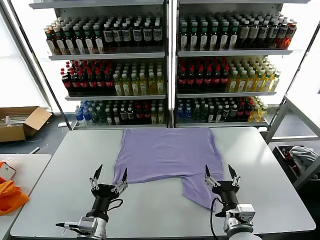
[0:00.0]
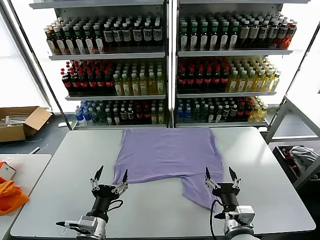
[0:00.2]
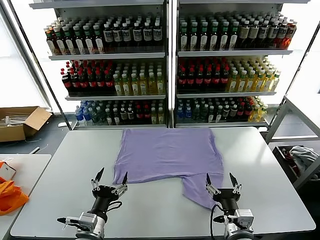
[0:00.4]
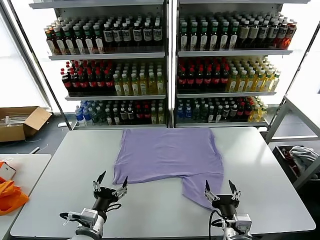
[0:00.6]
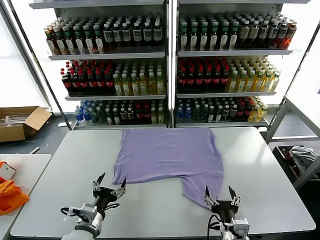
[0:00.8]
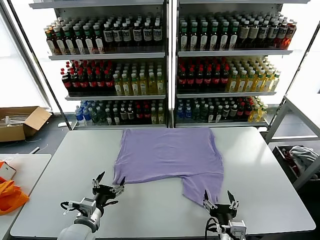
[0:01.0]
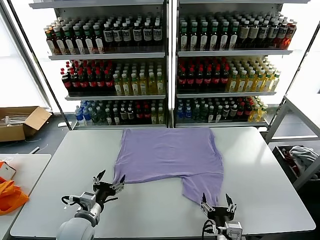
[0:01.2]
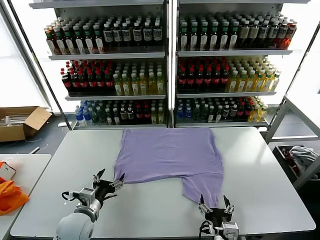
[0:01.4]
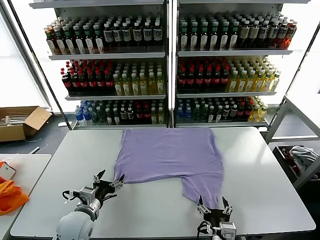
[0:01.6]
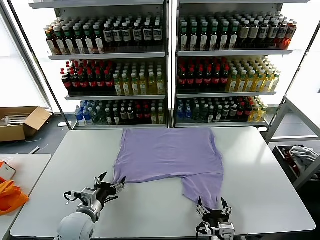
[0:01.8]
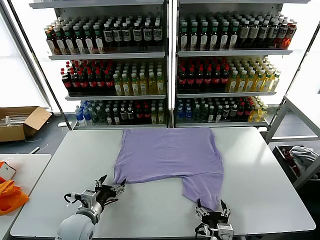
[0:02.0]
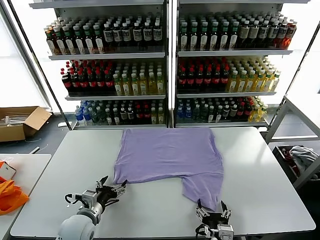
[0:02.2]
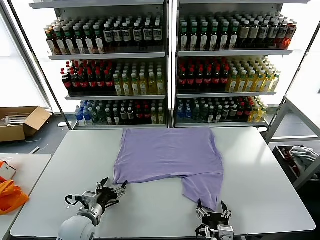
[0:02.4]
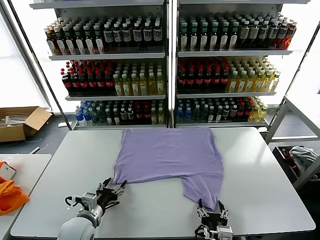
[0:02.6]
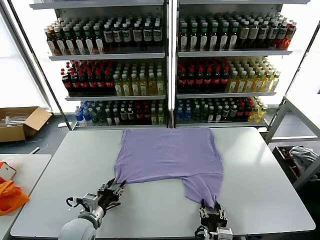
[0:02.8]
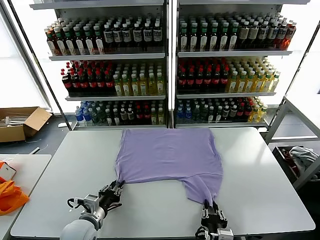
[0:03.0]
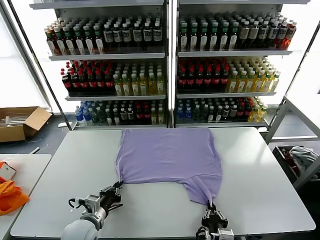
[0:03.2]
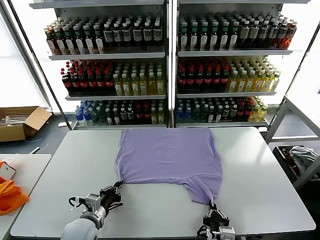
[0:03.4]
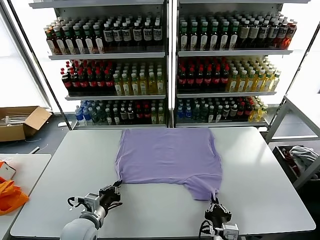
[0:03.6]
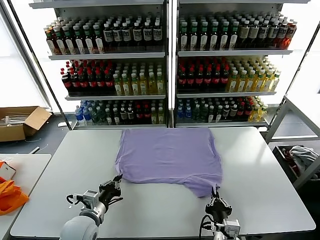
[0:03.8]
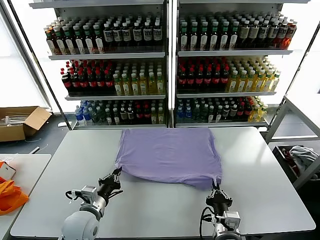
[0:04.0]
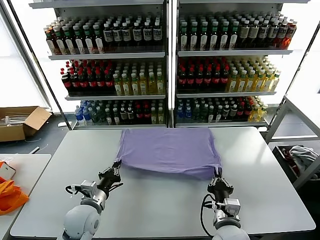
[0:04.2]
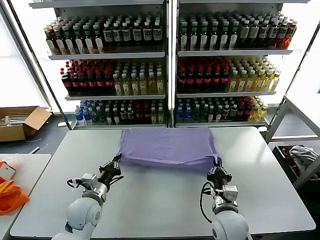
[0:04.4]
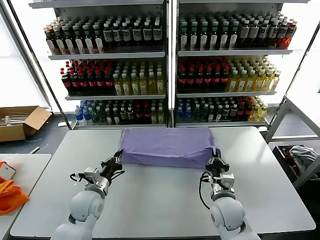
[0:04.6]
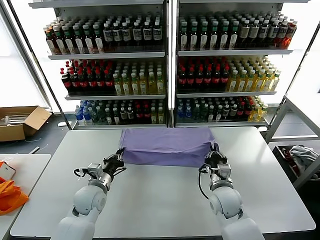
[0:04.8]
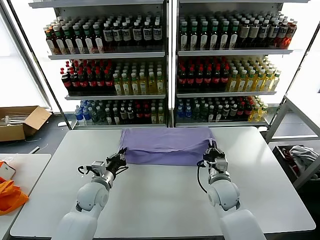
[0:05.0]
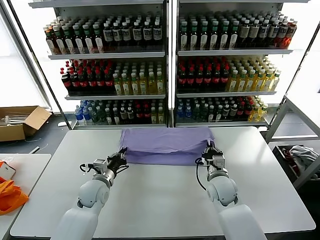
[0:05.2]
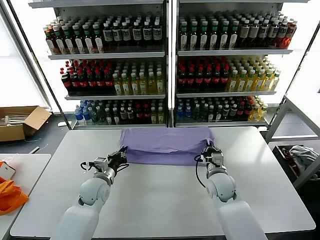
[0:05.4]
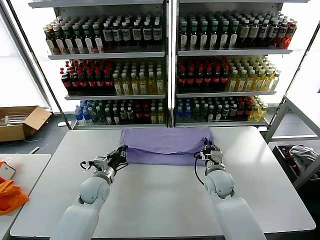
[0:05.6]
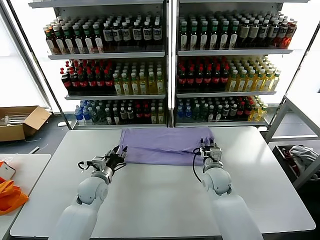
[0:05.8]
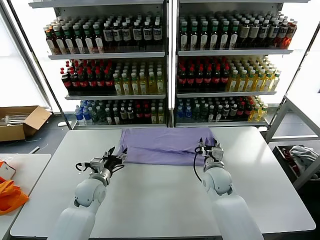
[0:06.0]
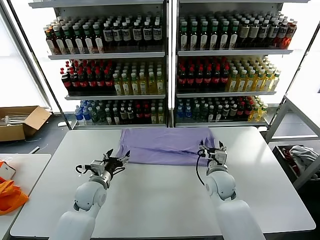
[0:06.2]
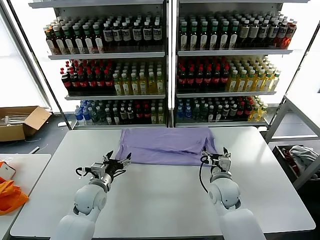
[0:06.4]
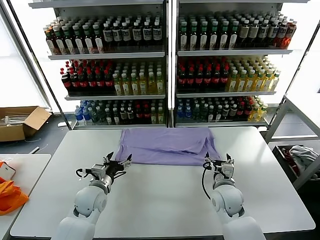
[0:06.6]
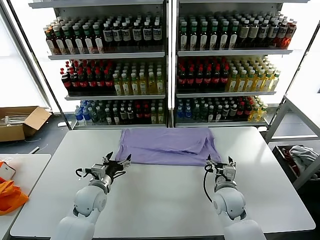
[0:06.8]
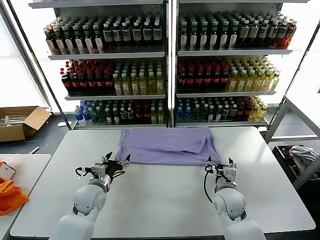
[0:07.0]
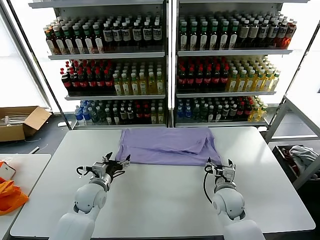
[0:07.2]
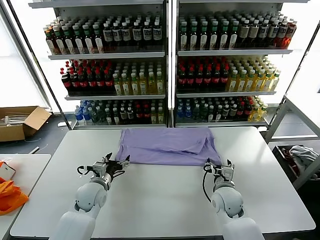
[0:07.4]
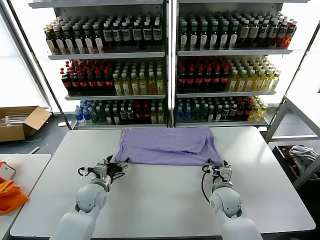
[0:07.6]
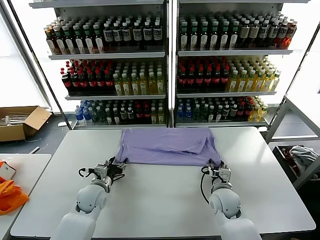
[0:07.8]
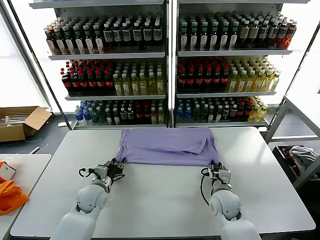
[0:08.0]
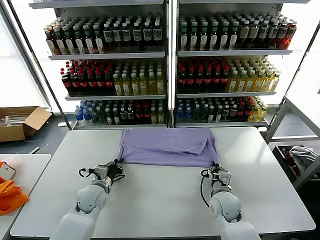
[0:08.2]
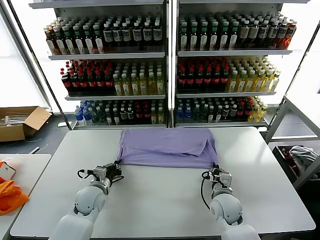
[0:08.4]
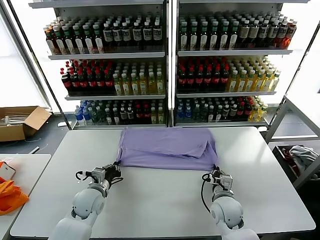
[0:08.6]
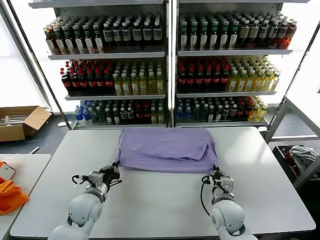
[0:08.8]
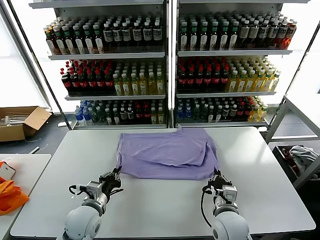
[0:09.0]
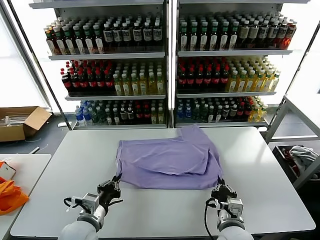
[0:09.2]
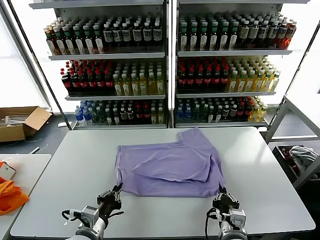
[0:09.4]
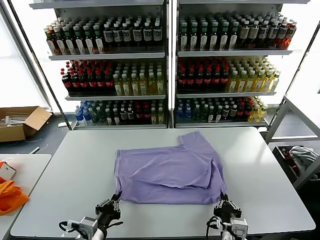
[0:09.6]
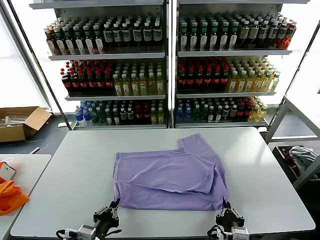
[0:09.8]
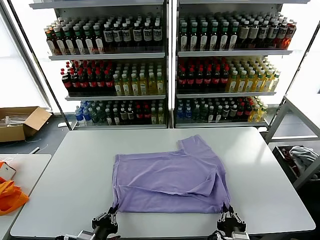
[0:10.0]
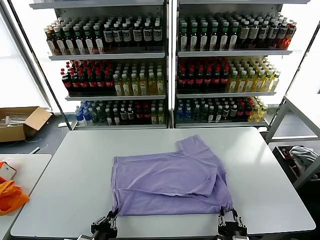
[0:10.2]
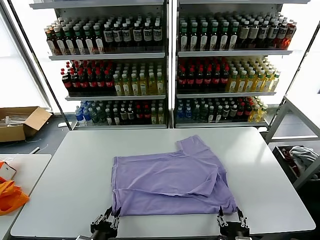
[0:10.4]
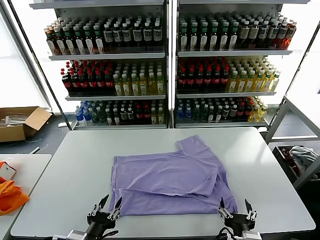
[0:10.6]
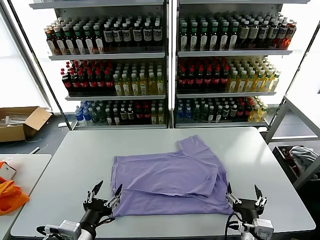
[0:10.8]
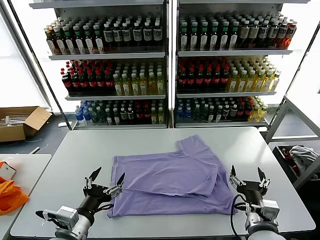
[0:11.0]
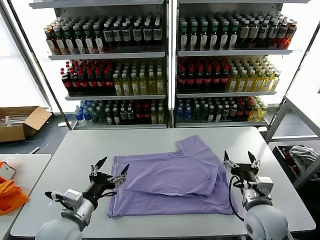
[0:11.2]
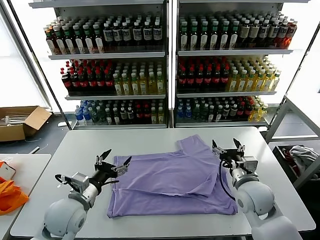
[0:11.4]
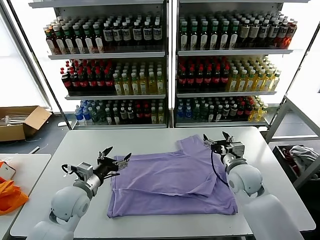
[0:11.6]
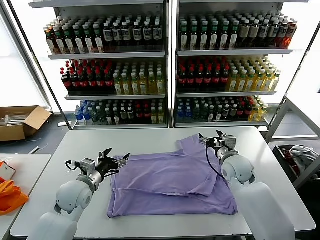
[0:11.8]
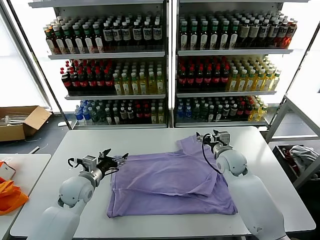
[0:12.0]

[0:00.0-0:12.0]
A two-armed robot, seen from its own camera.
Task of the whole recording: fold and organize the clothes.
Step, 0.0 to 3.6 s: use both grippers simultaneously to clamp the lower edge of the clothing fabric.
Step, 4.0 to 5.8 s: use both grippers to drag the lower edge of the fabric forward and fold it over the upper edge.
Step, 6.0 to 10.4 s: Drag the clothes downward with both gripper.
1.6 to 3.0 s: The right gripper closes its fingers. The left gripper closes its fingers.
3.0 to 4.4 s: The left gripper is displaced forward by roughly 5 cm, while the right gripper shifts some 15 cm forward.
4.4 to 6.0 s: Both grippers travel together forward, approximately 10 cm. The right gripper opens its fingers. The left gripper opens its fingers.
6.0 to 7.6 s: The right gripper moves backward, approximately 5 cm.
7.6 to 9.0 s: The grippers both shift backward by approximately 10 cm. The right gripper closes; the left gripper closes.
9.0 to 10.4 s: Both grippers travel together backward, about 15 cm. The right gripper opens its fingers.
10.4 to 12.0 s: The grippers both shift forward by roughly 30 cm. The left gripper opens its fingers.

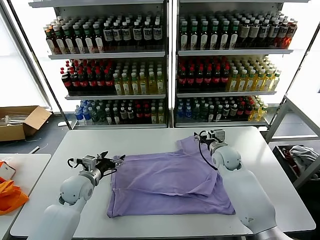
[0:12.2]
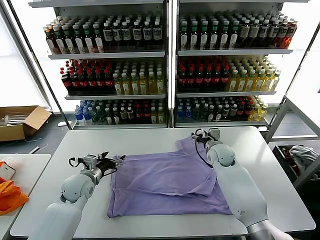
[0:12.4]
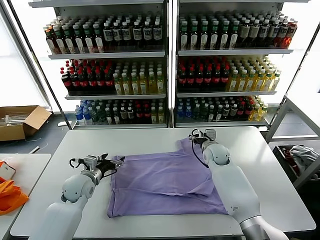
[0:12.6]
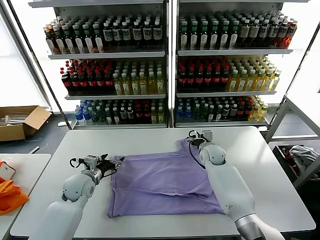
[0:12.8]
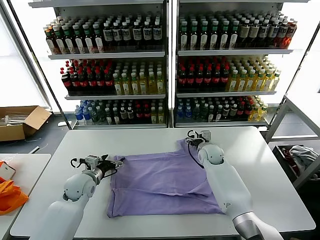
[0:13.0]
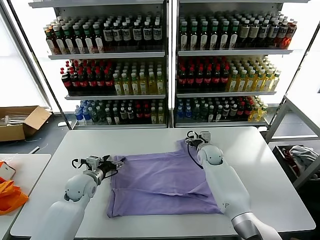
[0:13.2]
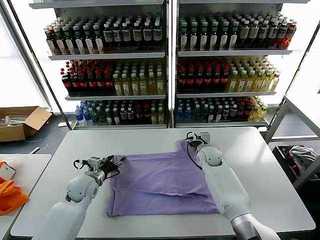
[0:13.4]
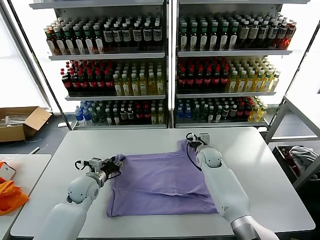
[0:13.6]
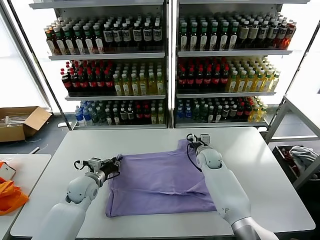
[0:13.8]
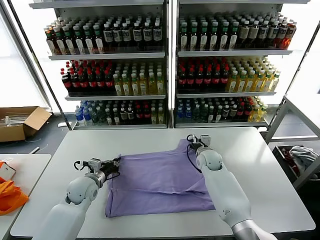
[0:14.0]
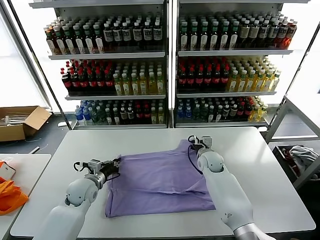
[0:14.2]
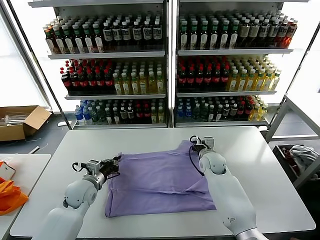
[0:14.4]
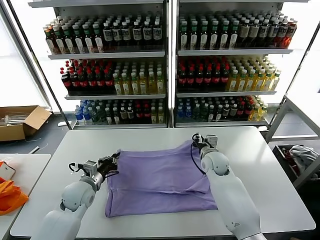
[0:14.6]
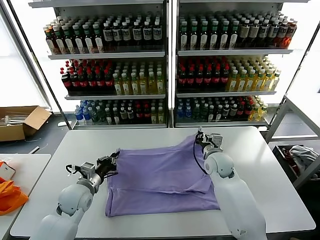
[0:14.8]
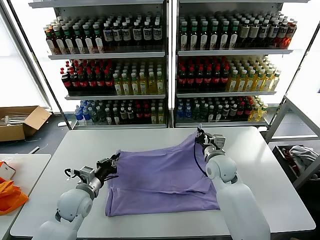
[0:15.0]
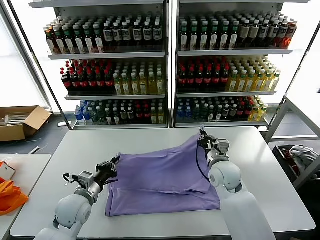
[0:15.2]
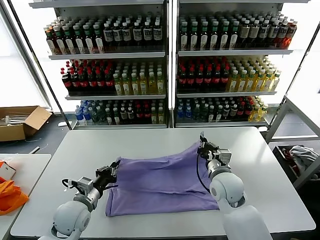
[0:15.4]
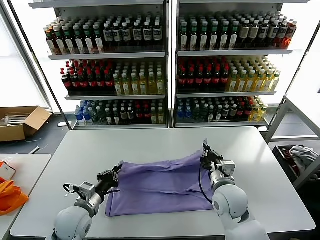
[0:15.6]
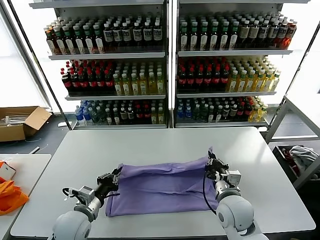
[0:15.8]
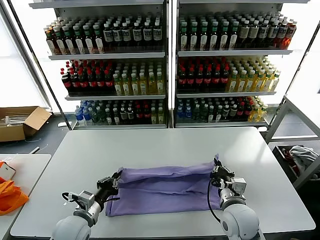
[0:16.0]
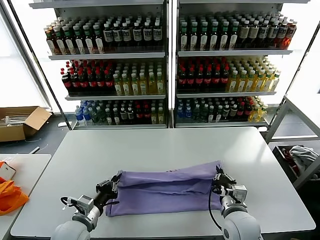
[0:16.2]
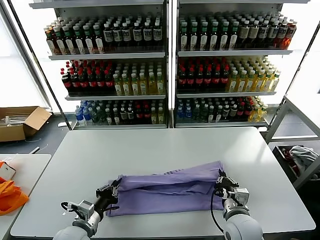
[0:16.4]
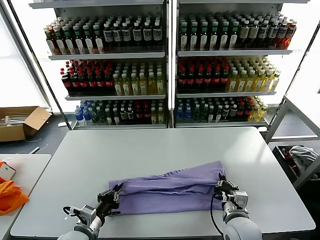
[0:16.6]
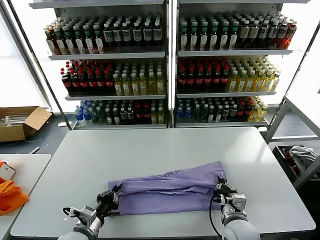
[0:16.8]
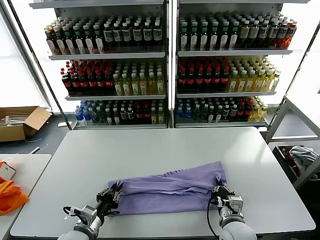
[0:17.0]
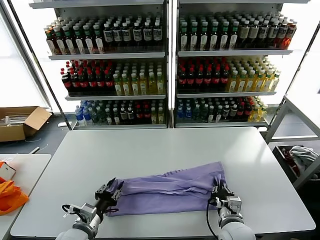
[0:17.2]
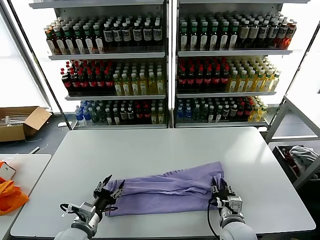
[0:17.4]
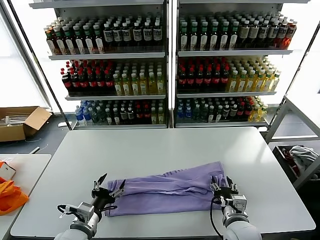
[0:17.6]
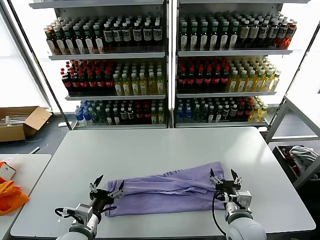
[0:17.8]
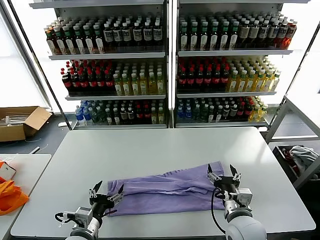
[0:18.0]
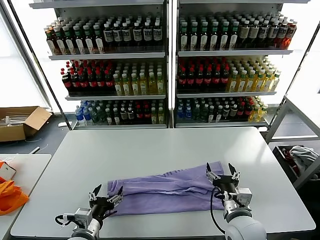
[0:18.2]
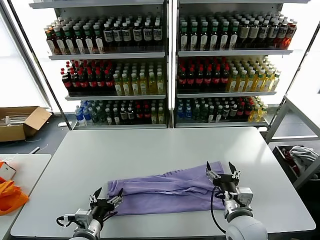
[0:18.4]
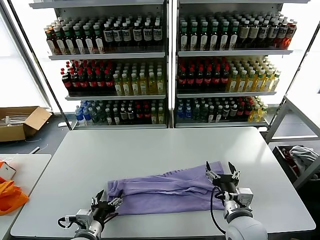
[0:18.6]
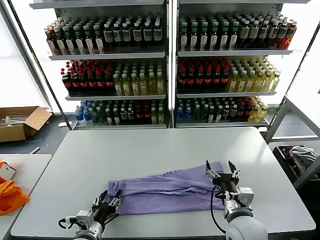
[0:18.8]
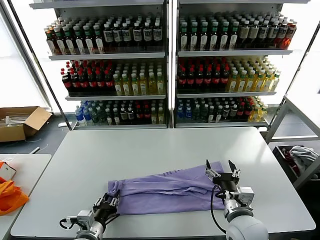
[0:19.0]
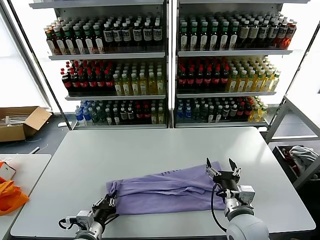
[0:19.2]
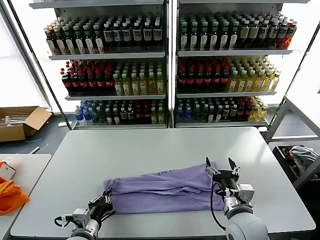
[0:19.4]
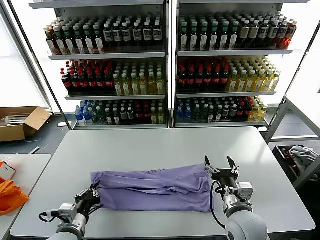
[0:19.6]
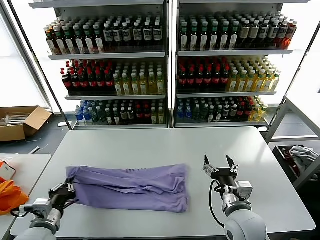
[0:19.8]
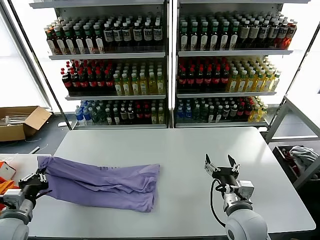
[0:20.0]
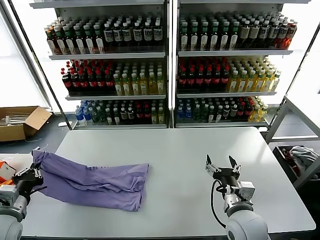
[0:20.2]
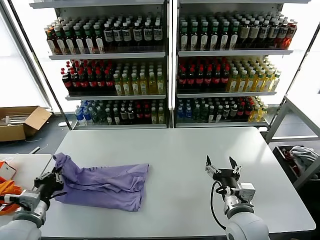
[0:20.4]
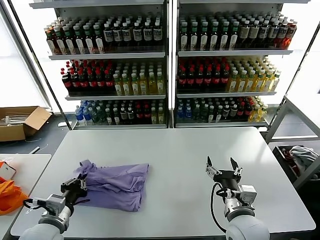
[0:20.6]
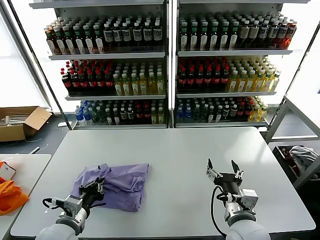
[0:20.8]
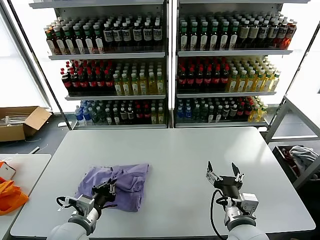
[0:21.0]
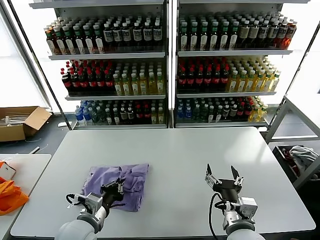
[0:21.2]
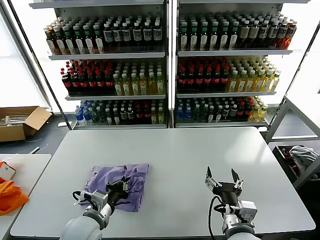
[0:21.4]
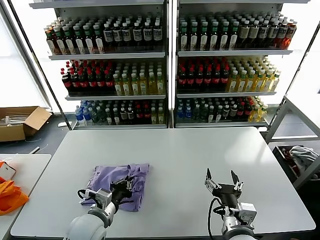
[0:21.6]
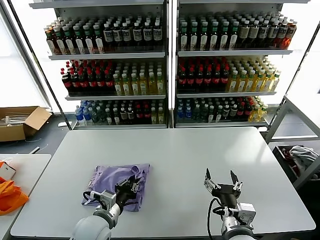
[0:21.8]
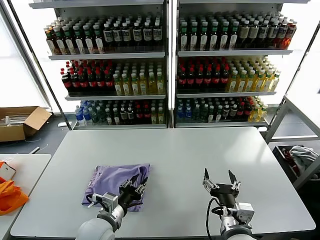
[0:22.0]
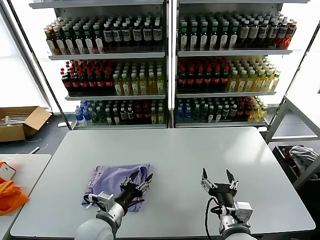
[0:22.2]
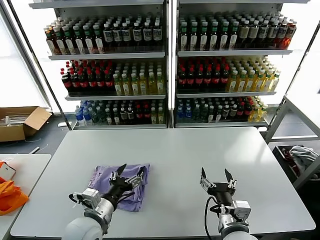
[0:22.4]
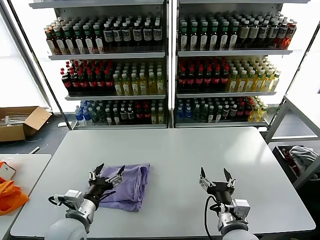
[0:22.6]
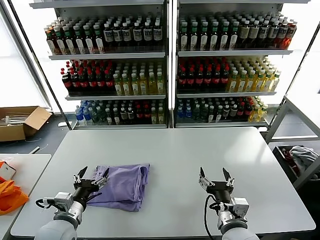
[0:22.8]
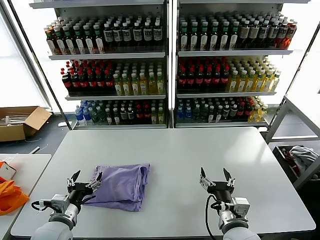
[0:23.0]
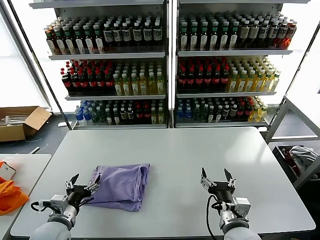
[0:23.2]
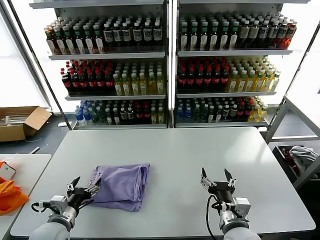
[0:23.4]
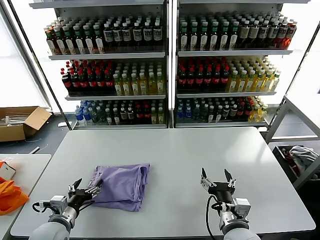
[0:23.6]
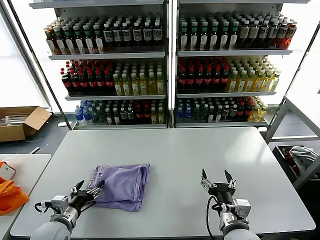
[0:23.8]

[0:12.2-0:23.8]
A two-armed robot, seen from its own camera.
Task of the whole recording: fold and organize the clothes.
Step, 12.2 to 14.4 s: use both grippers simultaneously to clamp the upper edge of the clothing fabric.
Step, 14.6 to 17.4 s: use both grippers to drag the upper edge of the fabric backward and fold it over the lower edge.
Step, 17.8 to 19.2 s: use the left gripper to clamp the left edge of the fabric.
Step, 19.4 to 22.0 s: use the left gripper to drag the left edge of the fabric to the left and folds it over the right edge.
12.2 to 13.6 s: The right gripper shifts about 5 cm downward, and closes up; the left gripper closes.
13.6 to 15.0 s: The right gripper is displaced backward and upward by some 15 cm, and closes up. The left gripper shifts approximately 5 cm backward, and closes its fingers.
15.0 to 16.6 s: The right gripper shifts about 20 cm backward; the left gripper moves backward, some 10 cm.
16.6 to 18.0 s: The right gripper opens its fingers. Meanwhile the left gripper opens up.
18.0 to 19.4 s: The left gripper closes up.
19.4 to 21.0 s: The left gripper travels upward by roughly 5 cm, and travels to the left and back again, some 20 cm each way.
21.0 to 22.4 s: The left gripper moves to the right, about 5 cm, and opens its fingers.
22.4 to 23.8 s: The left gripper moves to the left, roughly 15 cm.
